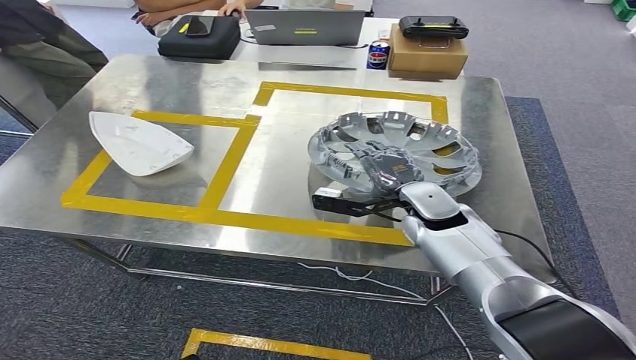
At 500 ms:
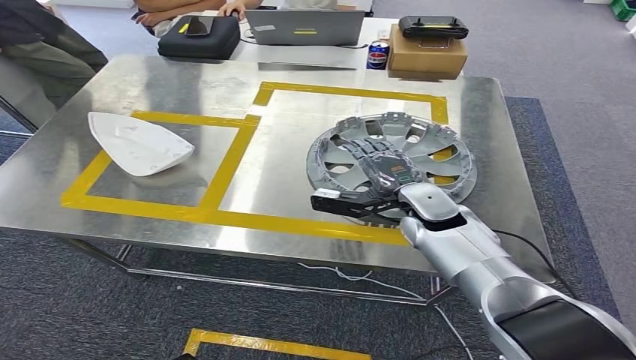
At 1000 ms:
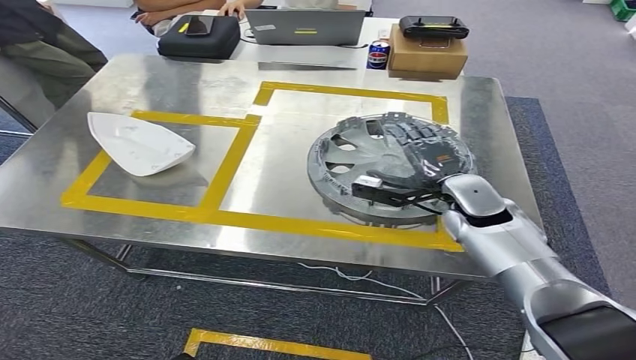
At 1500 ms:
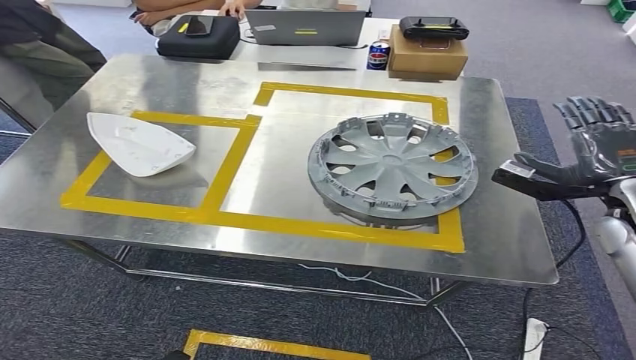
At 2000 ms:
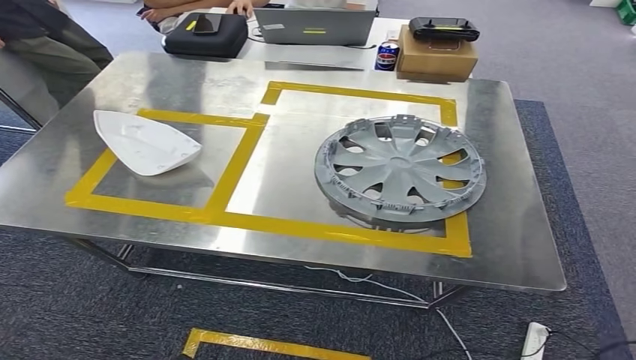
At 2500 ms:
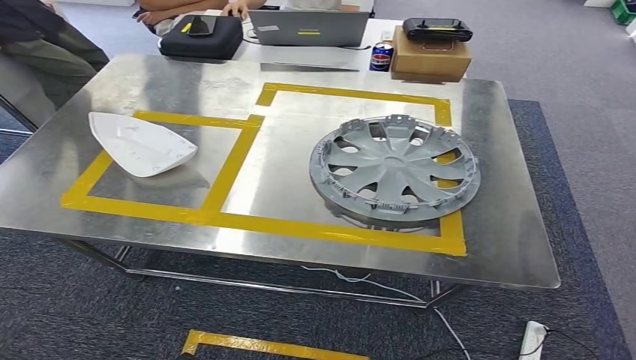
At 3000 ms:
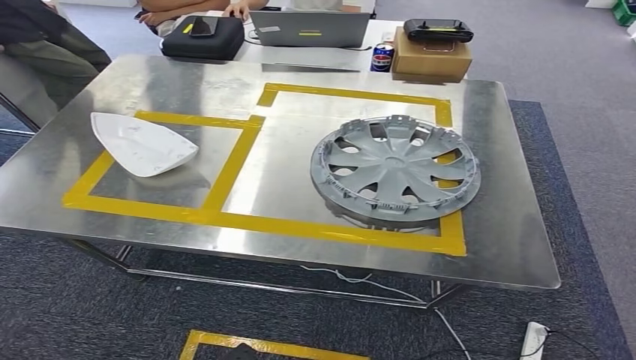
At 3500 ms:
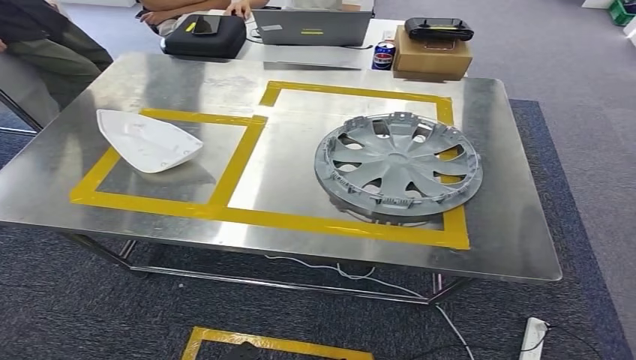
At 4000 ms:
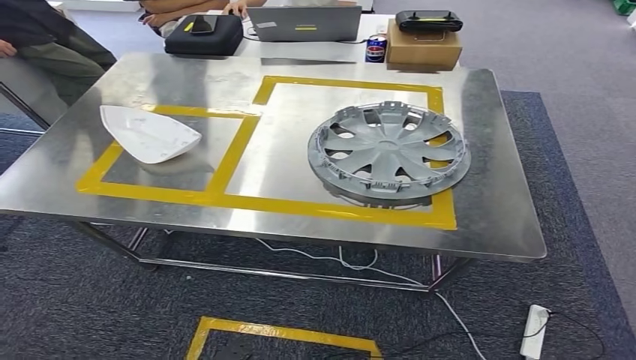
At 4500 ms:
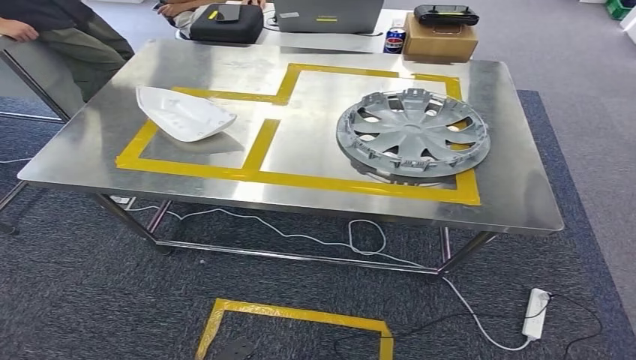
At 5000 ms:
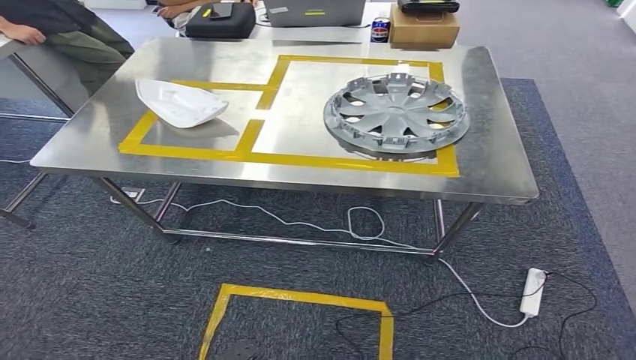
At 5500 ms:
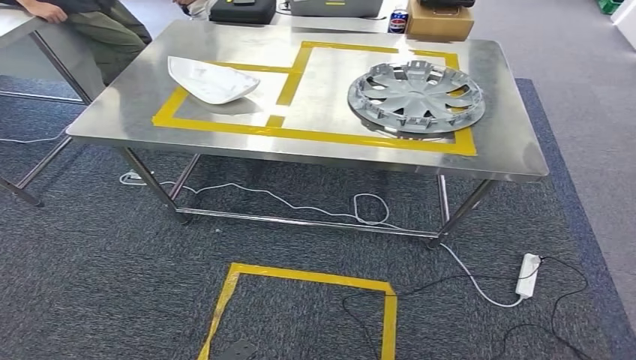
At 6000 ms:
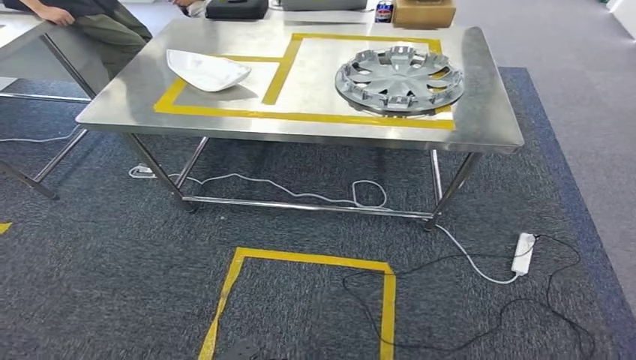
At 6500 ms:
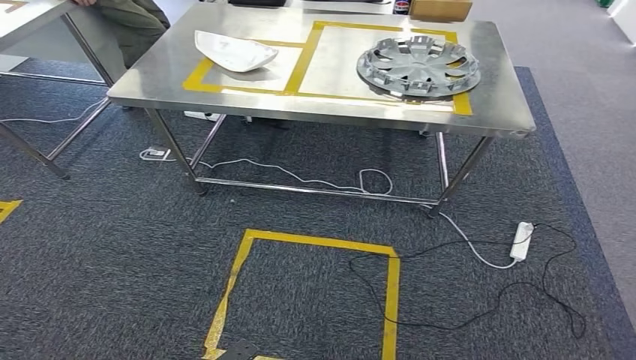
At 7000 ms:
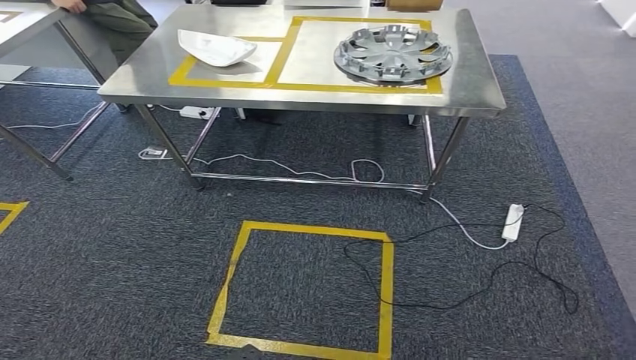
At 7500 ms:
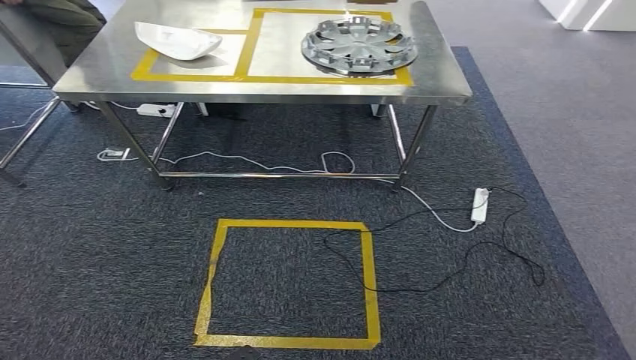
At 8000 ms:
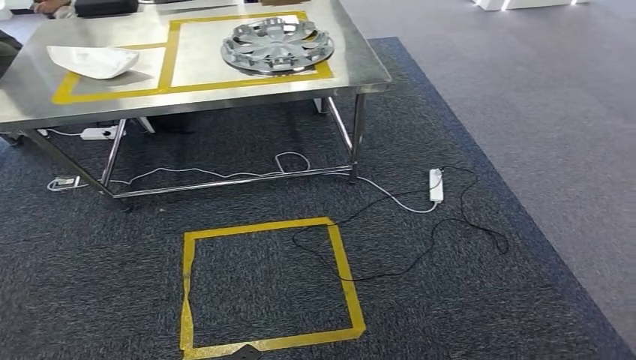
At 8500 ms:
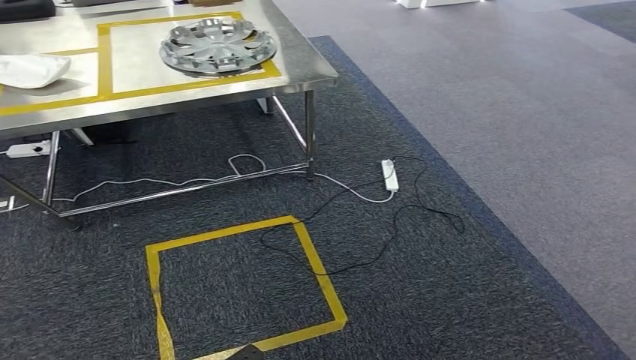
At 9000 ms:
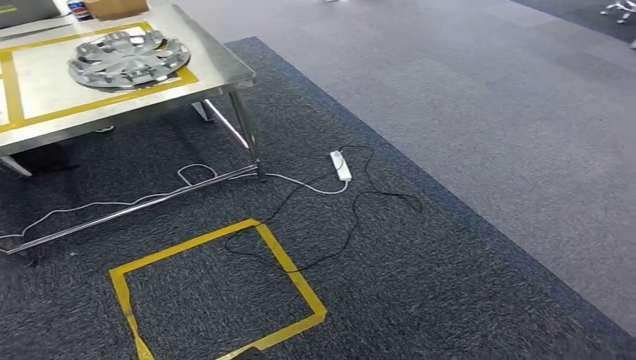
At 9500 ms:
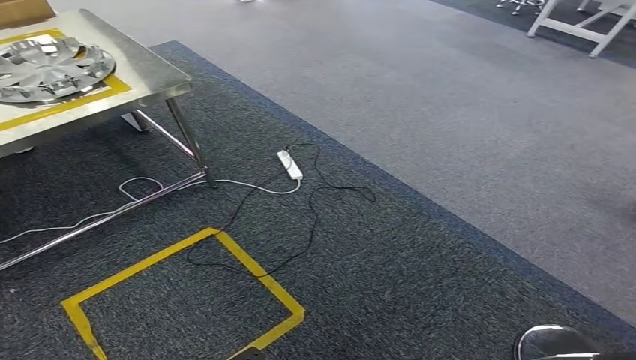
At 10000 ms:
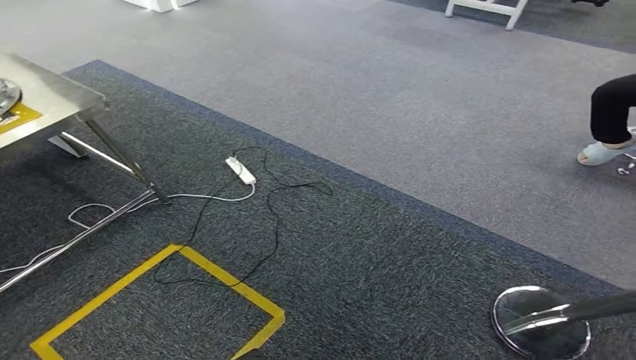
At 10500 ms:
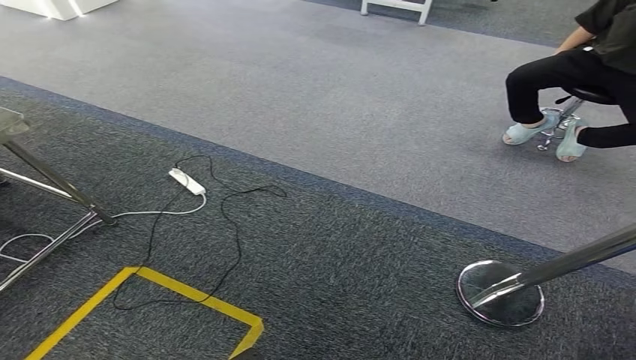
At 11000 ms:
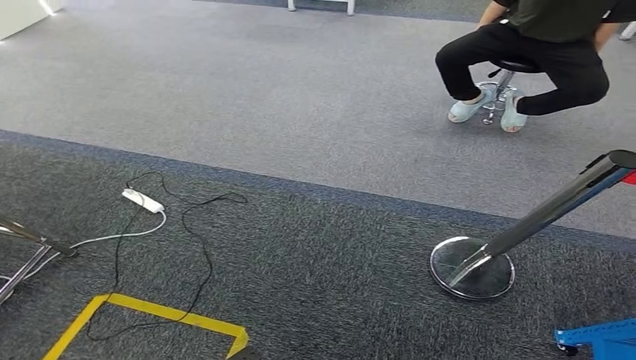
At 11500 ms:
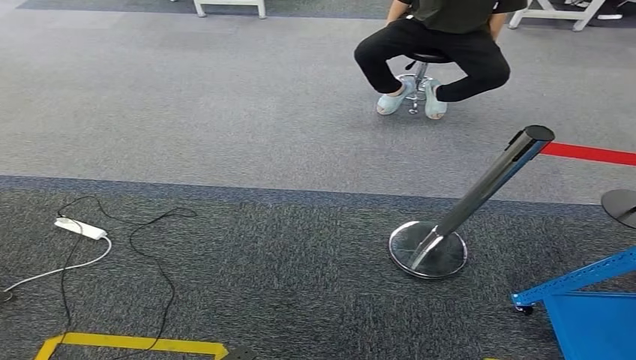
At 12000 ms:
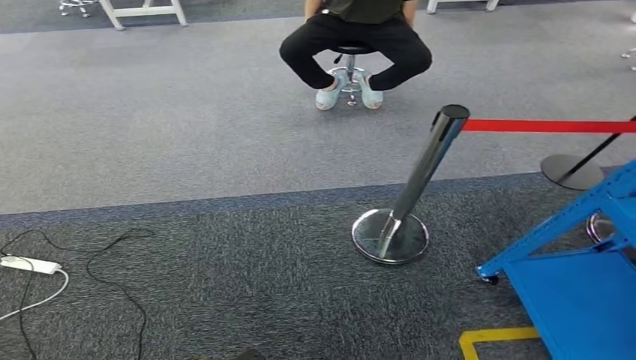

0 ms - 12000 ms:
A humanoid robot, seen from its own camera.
Step, 0 ms - 3500 ms: Insert the small component into the corresponding slot on the workbench.

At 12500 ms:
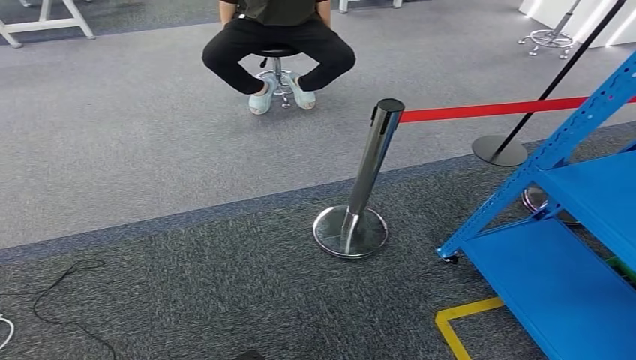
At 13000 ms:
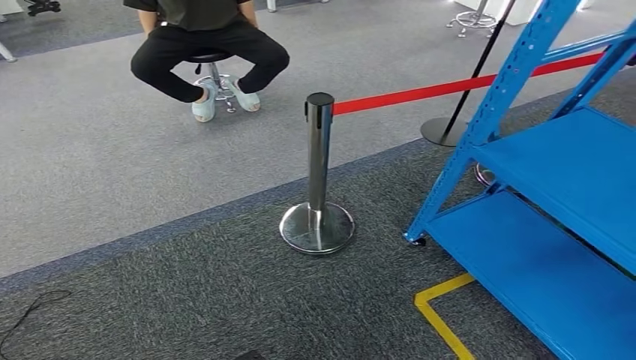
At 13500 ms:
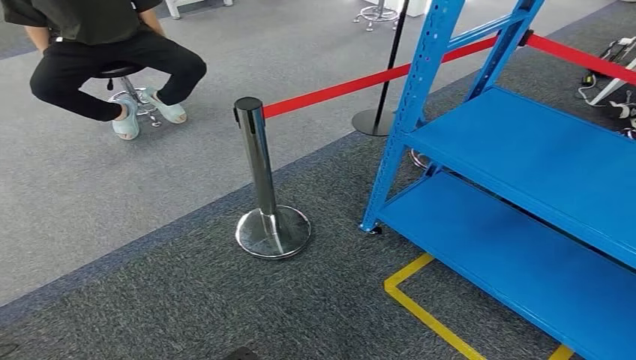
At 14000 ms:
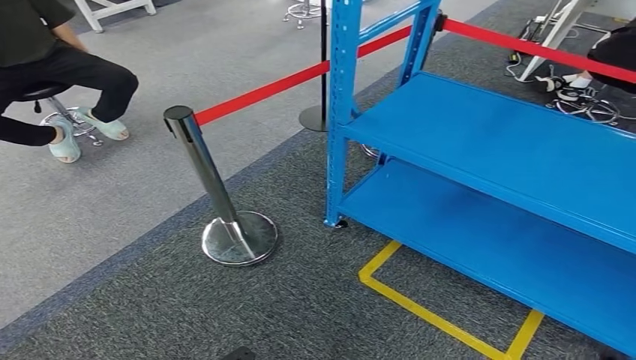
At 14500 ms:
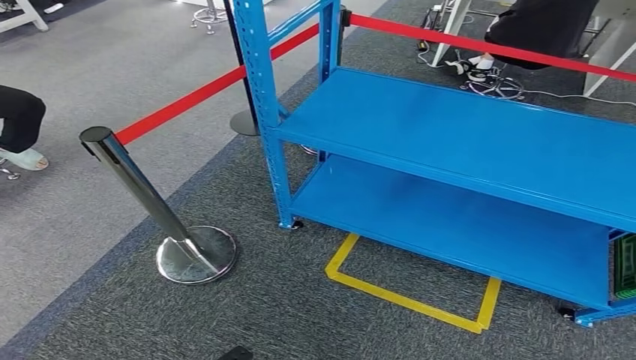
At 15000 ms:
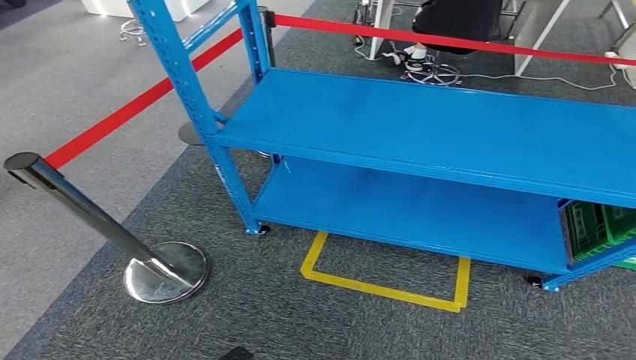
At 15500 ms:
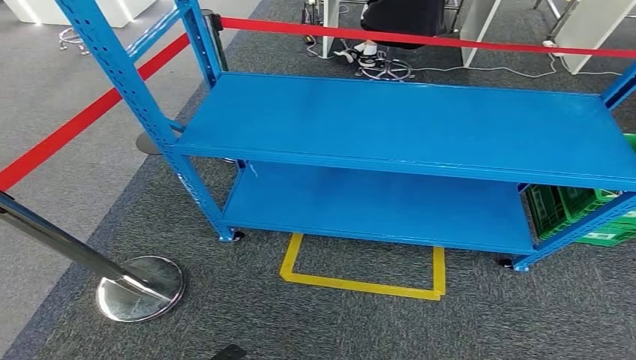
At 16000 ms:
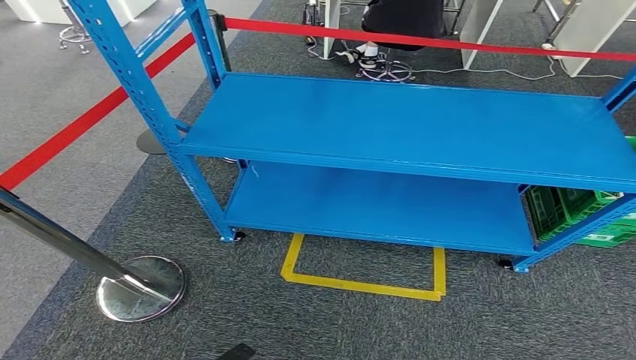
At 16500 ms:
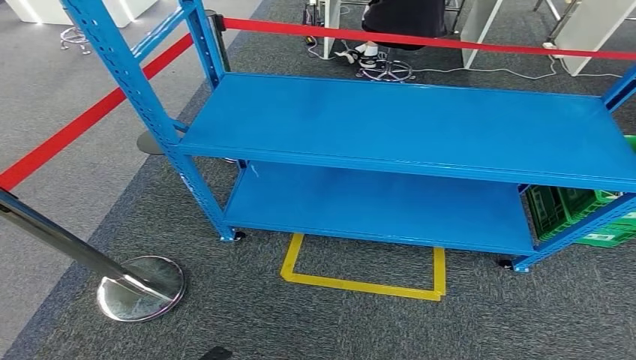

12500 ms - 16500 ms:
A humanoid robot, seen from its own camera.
Step, 12500 ms - 16500 ms: Return to the initial position at the workbench.
